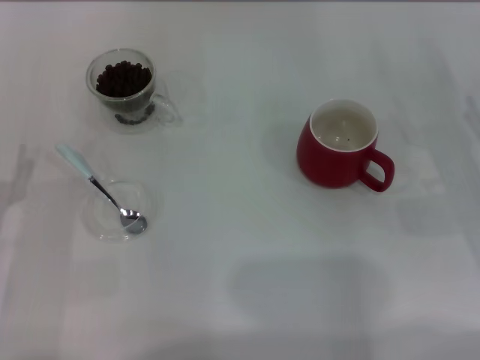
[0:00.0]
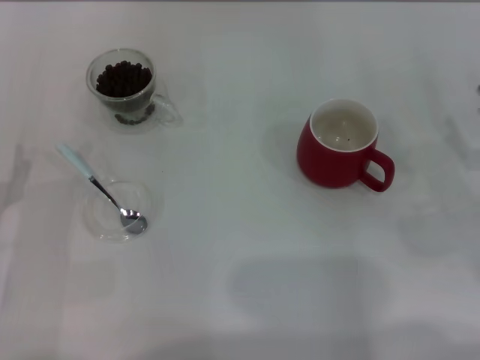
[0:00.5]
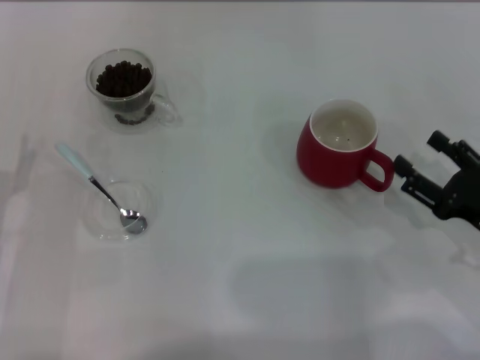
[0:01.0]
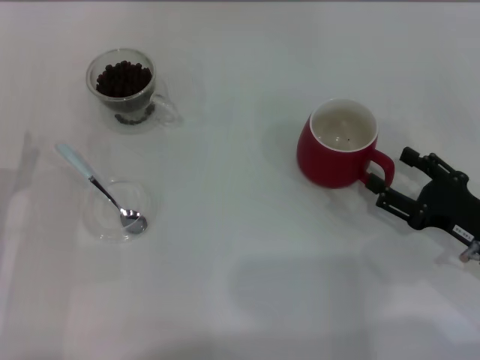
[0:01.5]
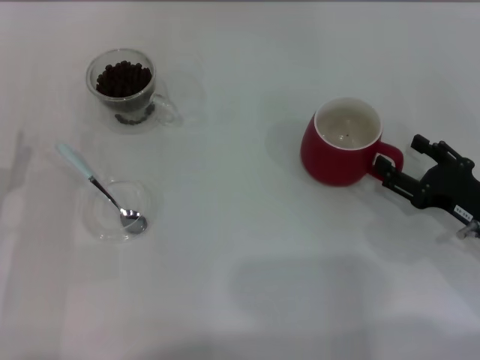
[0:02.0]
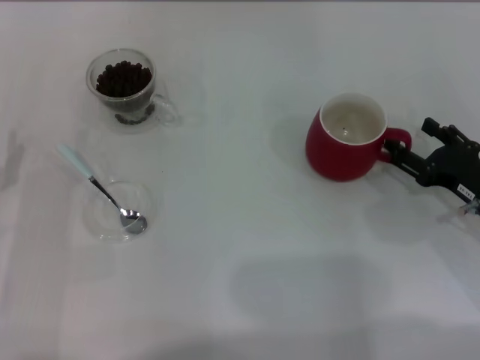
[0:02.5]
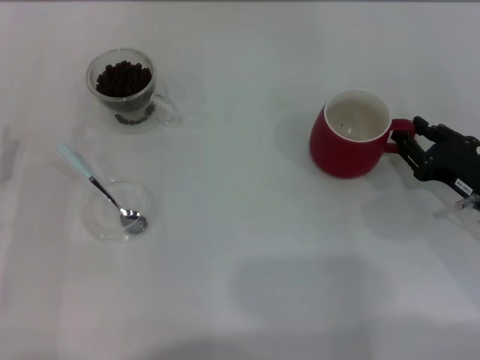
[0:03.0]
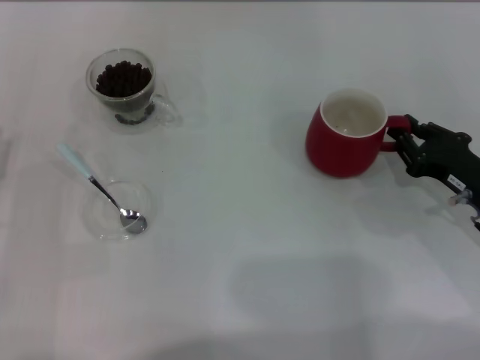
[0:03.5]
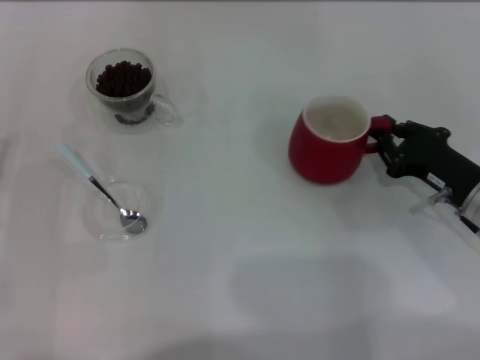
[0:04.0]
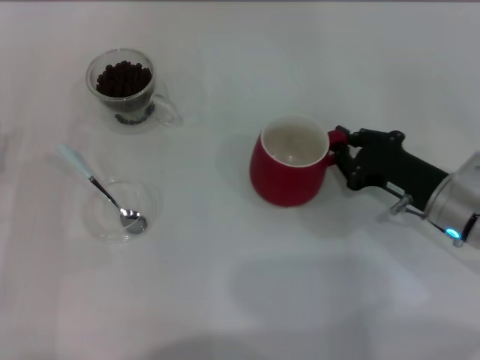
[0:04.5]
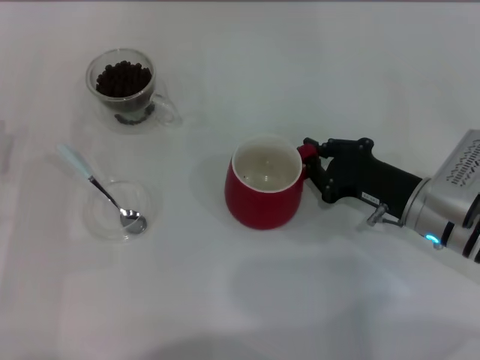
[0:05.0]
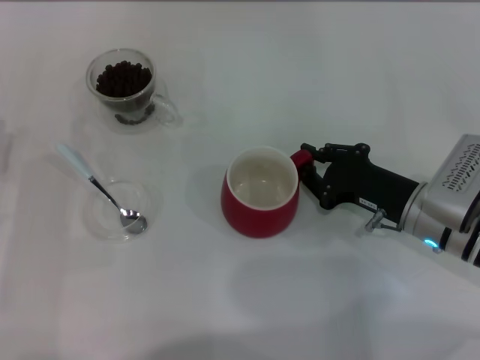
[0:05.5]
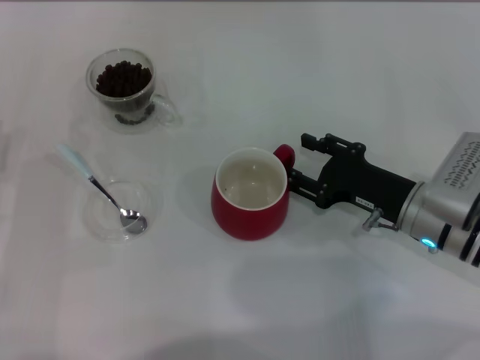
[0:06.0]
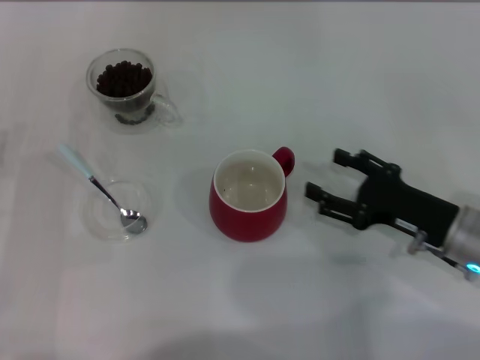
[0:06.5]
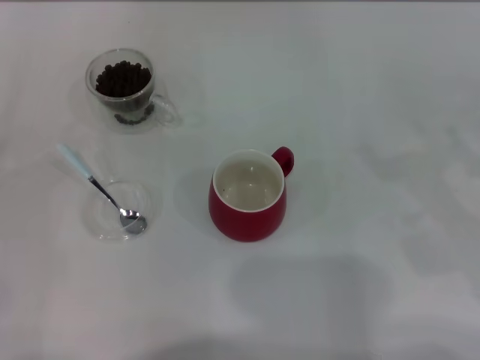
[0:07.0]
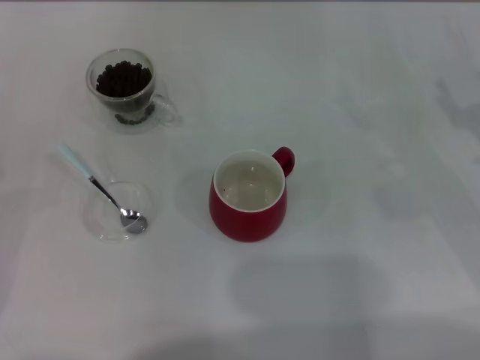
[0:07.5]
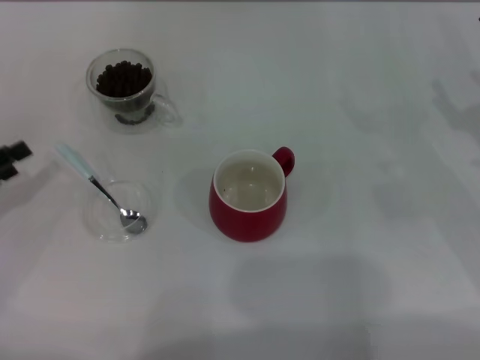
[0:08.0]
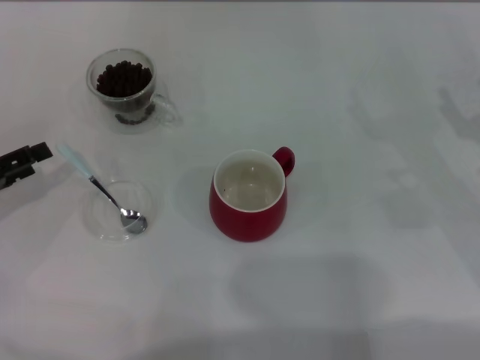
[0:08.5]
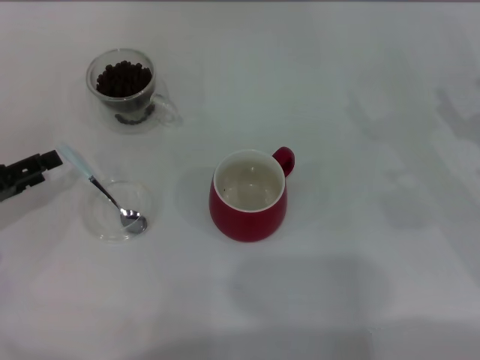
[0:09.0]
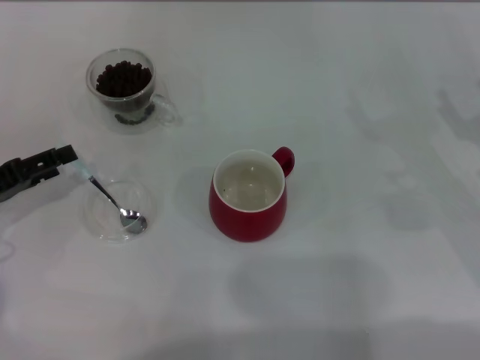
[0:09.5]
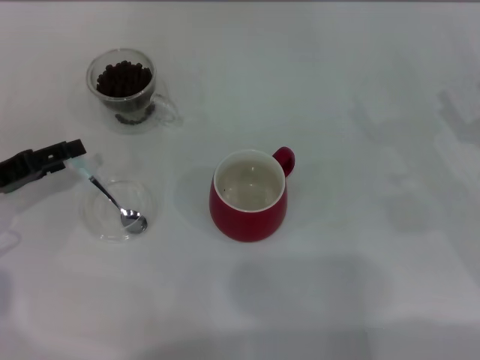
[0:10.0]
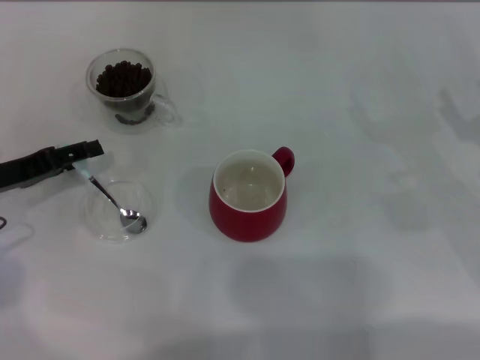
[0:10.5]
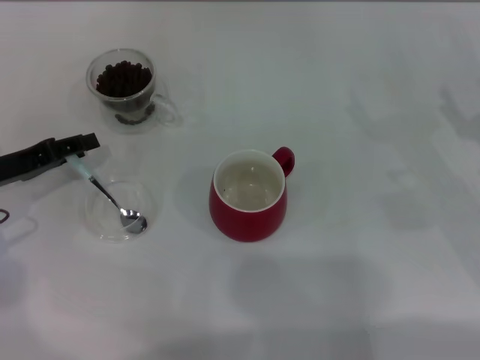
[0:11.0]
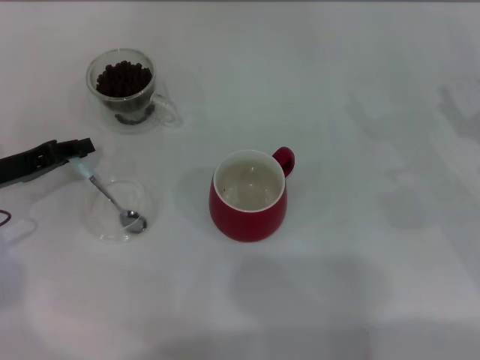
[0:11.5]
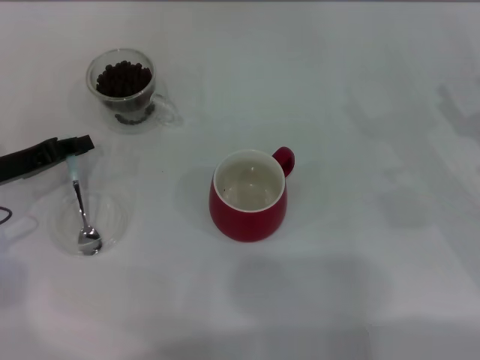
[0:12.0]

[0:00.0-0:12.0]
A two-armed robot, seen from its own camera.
Task of the whole recording: Use a blue spoon to take out the coffee beans from the glass and pour them into the red cup.
Step, 0:00.0 to 0:06.5: Move the cup to the center of view with the left gripper.
0:00.0 to 0:02.0: The right gripper shifts roughly 5 cm to the left.
0:02.0 to 0:04.0: The right gripper closes its fingers.
0:04.0 to 0:06.0: The right gripper moves to the left, some 5 cm.
0:06.0 to 0:08.0: The right gripper travels to the right by roughly 10 cm, and opens its fingers. The left gripper heads to the left, covering approximately 5 cm.
0:08.0 to 0:10.0: The left gripper shifts by approximately 5 cm.
0:10.0 to 0:12.0: The left gripper closes.

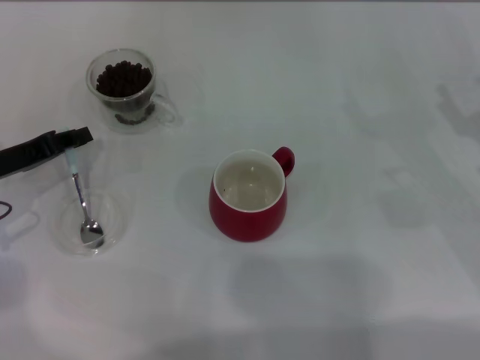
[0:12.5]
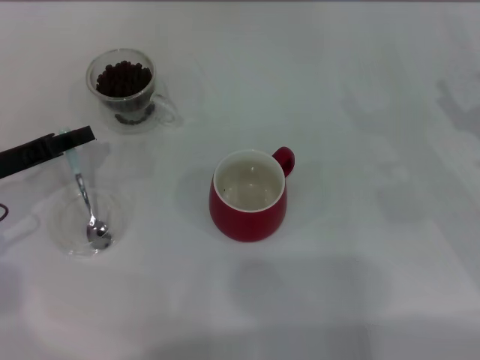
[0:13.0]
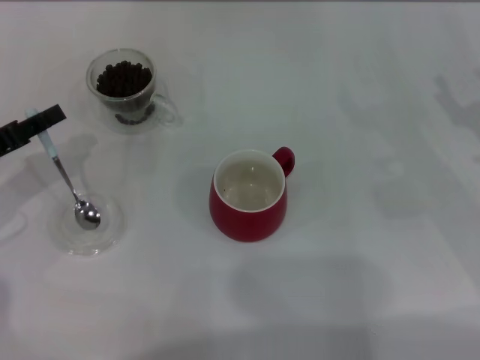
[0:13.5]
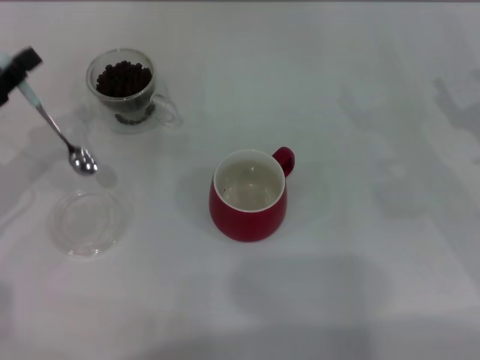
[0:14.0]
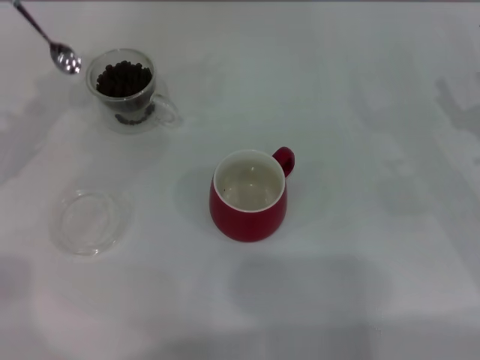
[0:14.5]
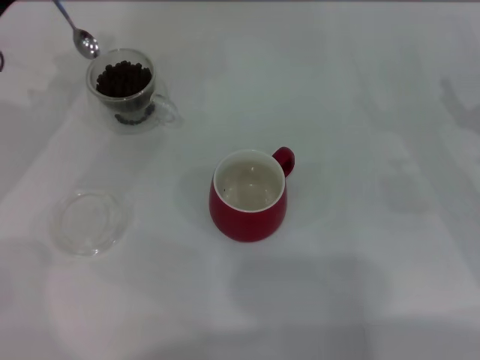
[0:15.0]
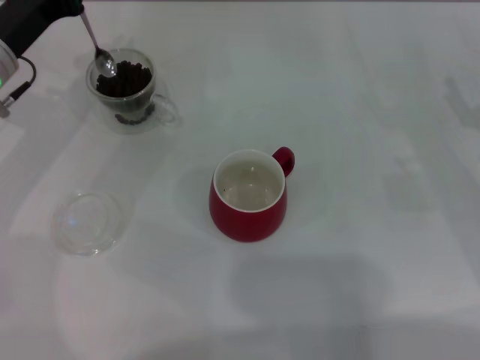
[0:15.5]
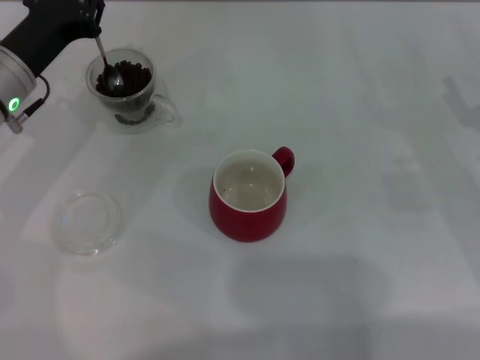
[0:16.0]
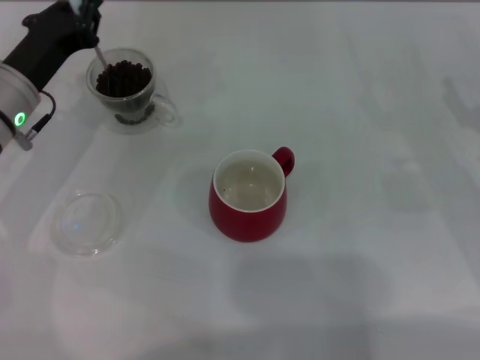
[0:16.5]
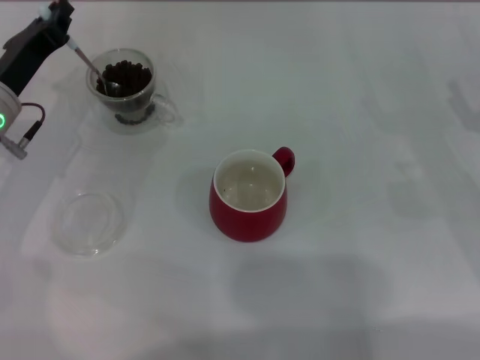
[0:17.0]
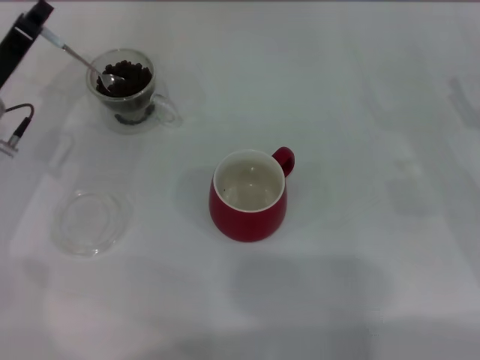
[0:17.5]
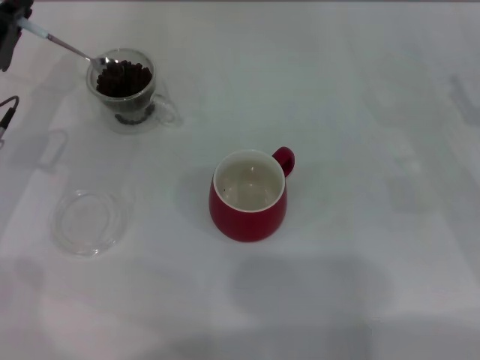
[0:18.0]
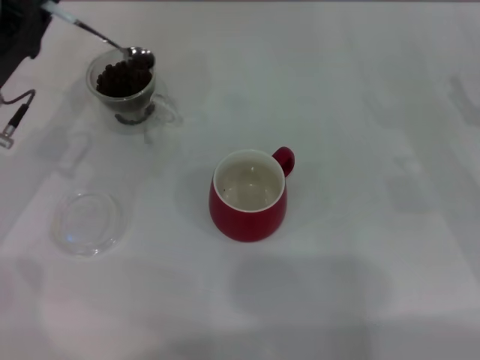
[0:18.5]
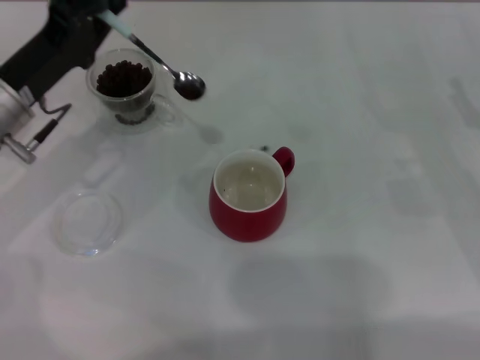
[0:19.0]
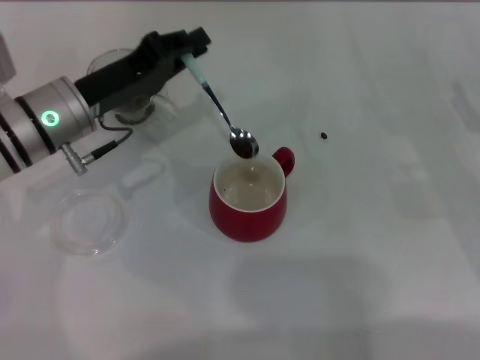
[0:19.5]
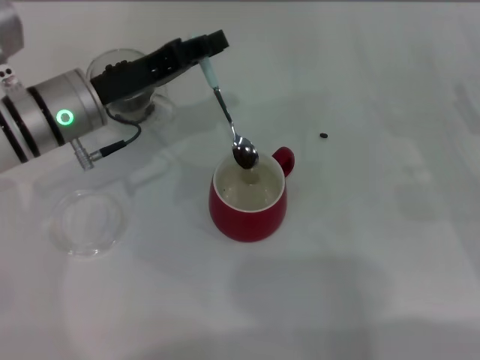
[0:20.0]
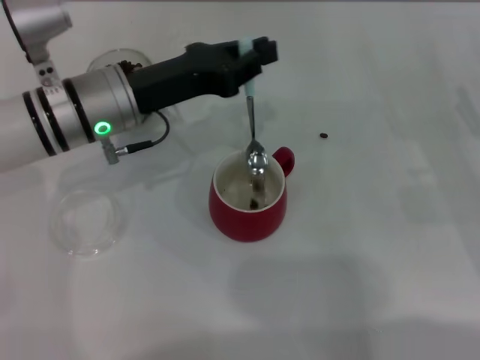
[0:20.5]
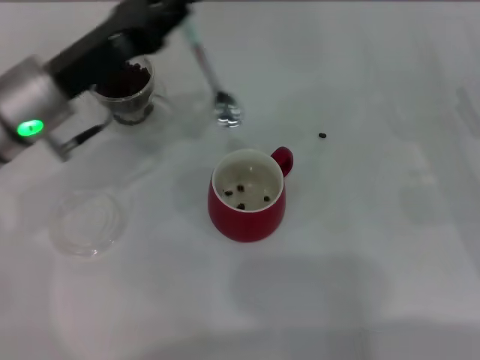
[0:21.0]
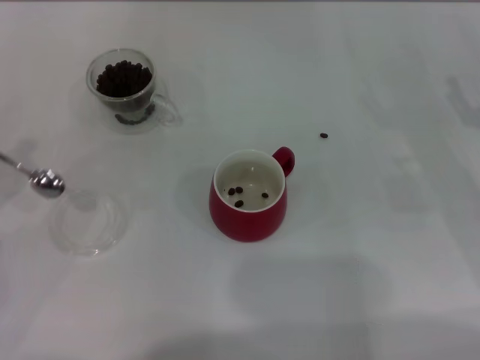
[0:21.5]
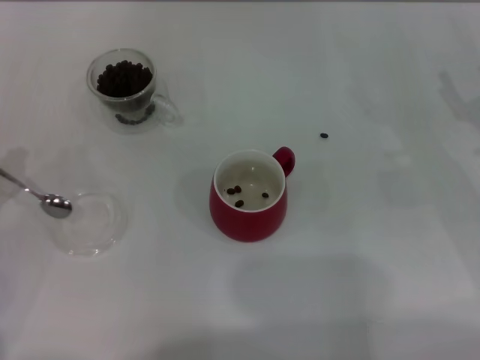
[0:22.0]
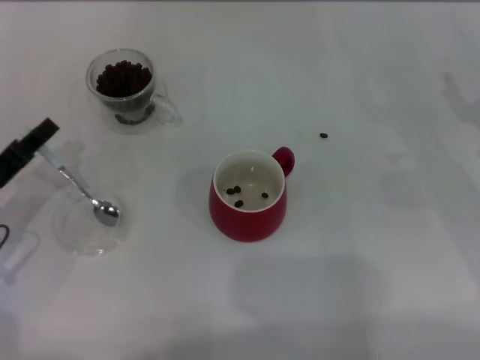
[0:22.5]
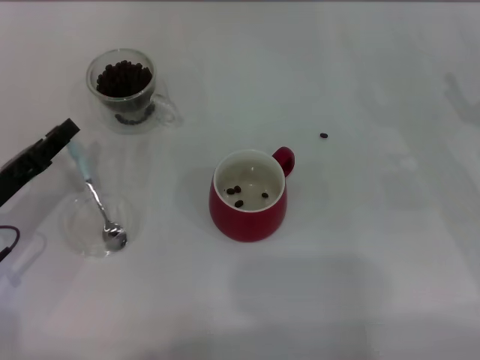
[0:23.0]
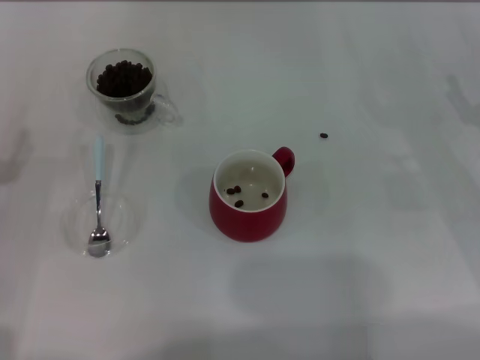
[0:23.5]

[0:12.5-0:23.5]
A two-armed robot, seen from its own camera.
Task of the whole recording: Use a blue spoon to take out the coffee beans from the glass and pour them into the red cup.
0:12.5 to 0:14.5: The left gripper heads upward, covering some 5 cm.
0:14.5 to 0:16.0: The left gripper is displaced to the right by about 10 cm.
0:16.0 to 0:18.0: The left gripper ends up some 5 cm from where it was.
0:18.0 to 0:20.0: The left gripper heads to the right, covering some 10 cm.
0:20.0 to 0:21.5: The left gripper travels to the left and backward by about 20 cm.
0:21.5 to 0:23.5: The left gripper opens its fingers.
